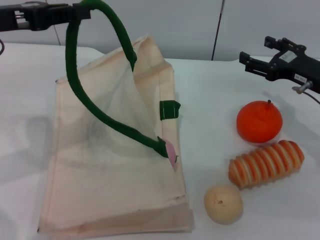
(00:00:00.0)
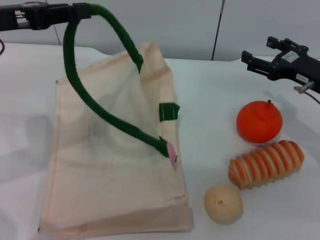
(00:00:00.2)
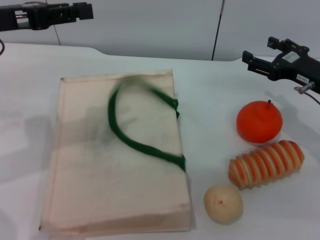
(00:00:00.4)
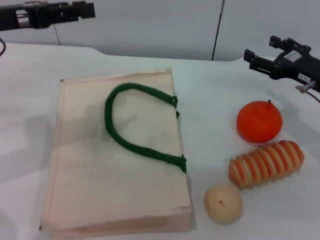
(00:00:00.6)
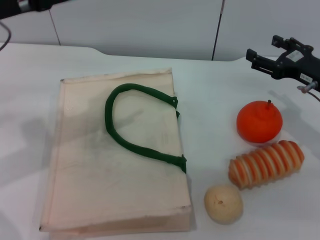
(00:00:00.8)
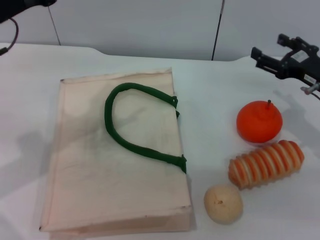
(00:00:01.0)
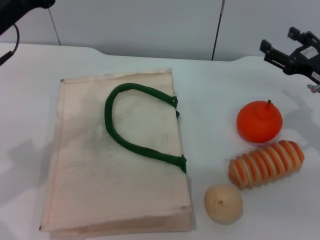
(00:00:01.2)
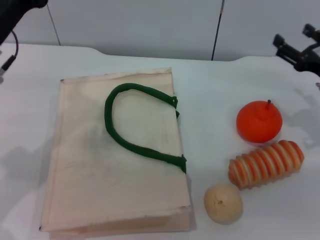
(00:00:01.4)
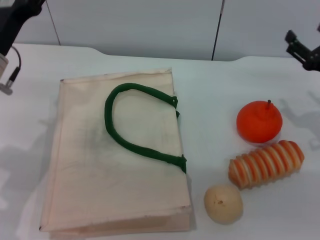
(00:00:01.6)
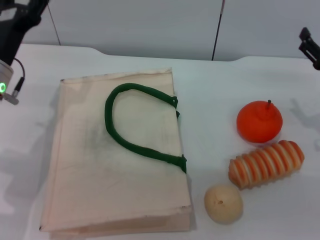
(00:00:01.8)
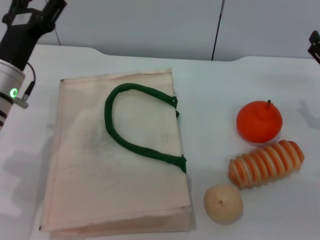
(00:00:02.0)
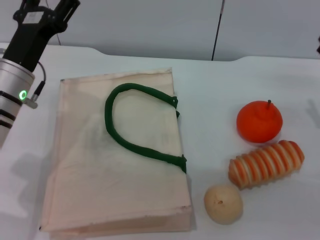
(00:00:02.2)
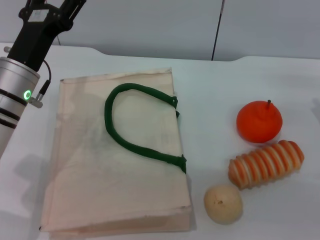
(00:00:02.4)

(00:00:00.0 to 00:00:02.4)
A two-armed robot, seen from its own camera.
Task of the whole recording: pick up the peach from the table and place it in the white handbag.
00:00:00.0 - 00:00:01.2: The left gripper changes place by approximately 5 cm, and opens.
00:00:01.2 - 00:00:02.4: The left gripper travels downward and to the right by some 10 cm.
